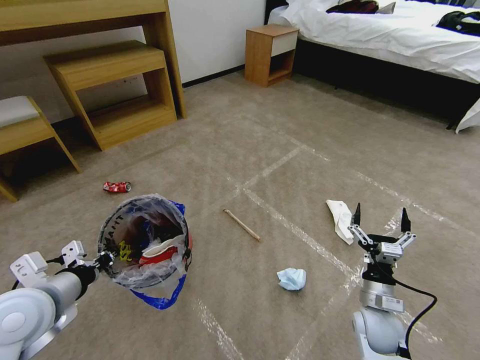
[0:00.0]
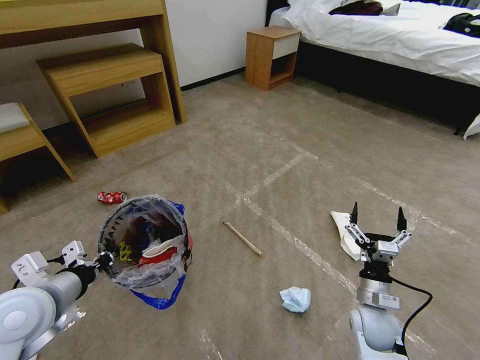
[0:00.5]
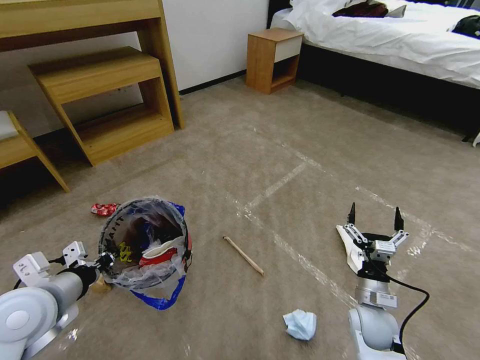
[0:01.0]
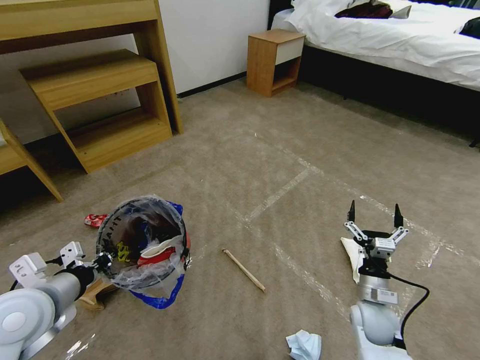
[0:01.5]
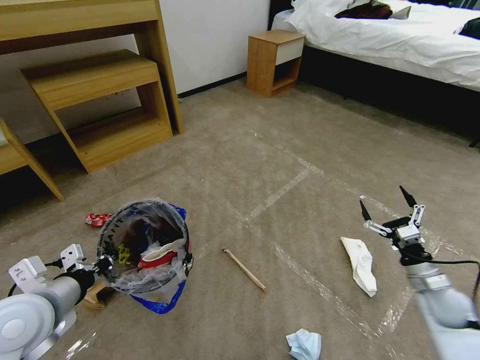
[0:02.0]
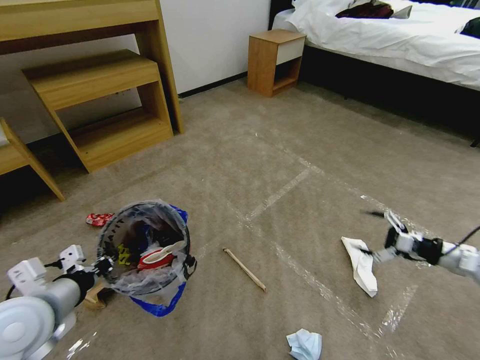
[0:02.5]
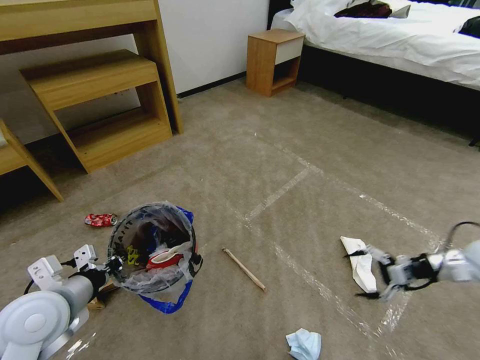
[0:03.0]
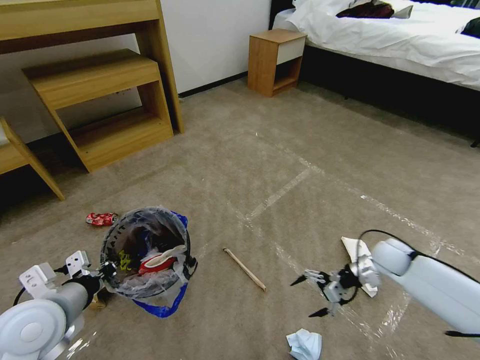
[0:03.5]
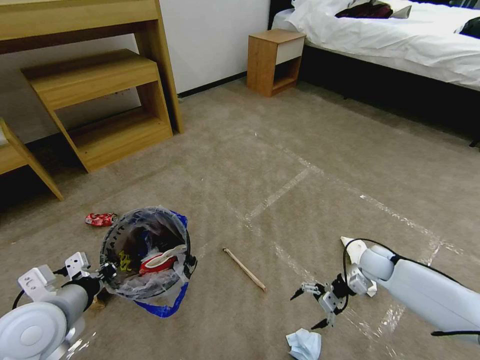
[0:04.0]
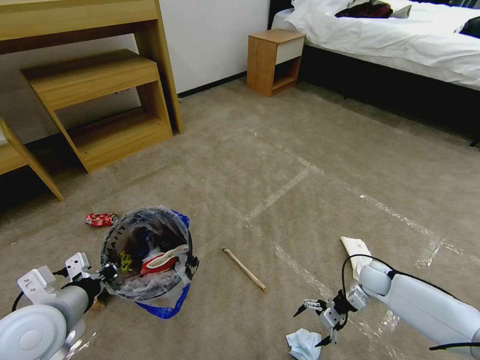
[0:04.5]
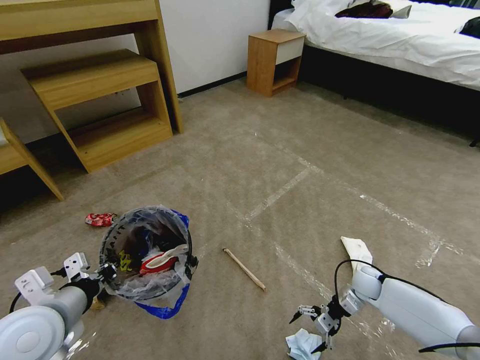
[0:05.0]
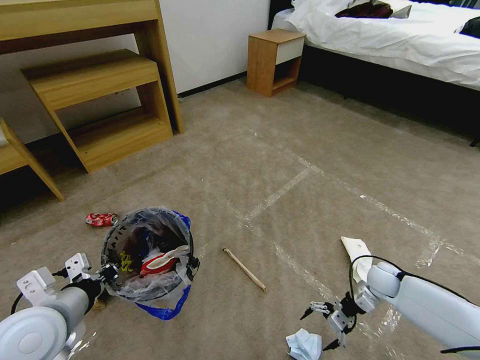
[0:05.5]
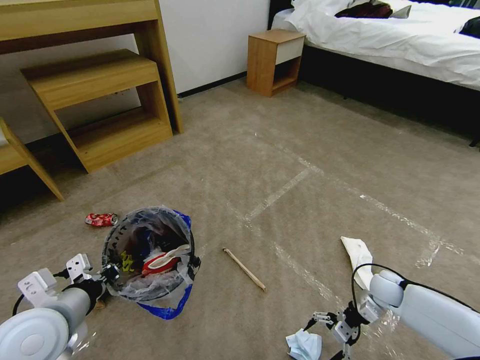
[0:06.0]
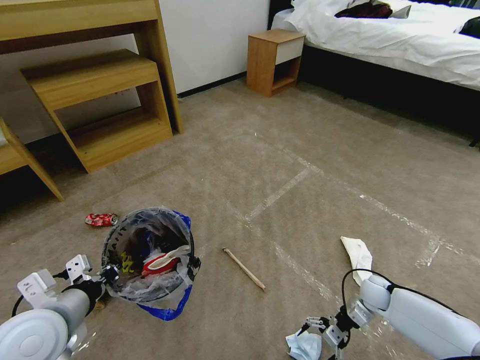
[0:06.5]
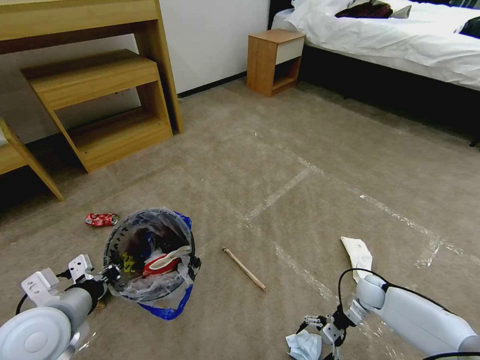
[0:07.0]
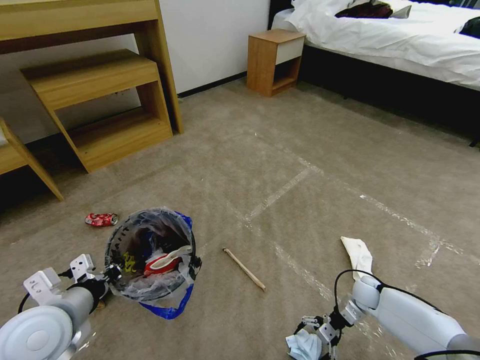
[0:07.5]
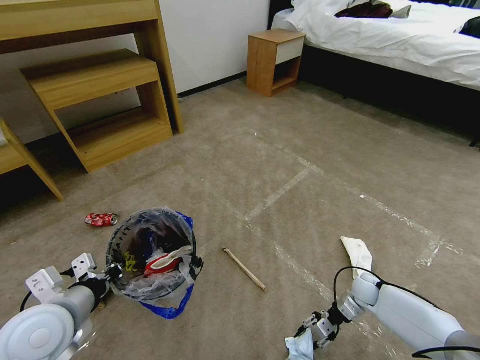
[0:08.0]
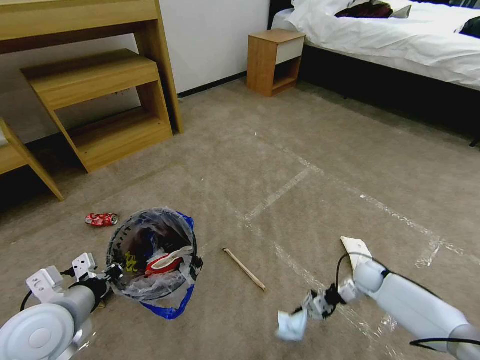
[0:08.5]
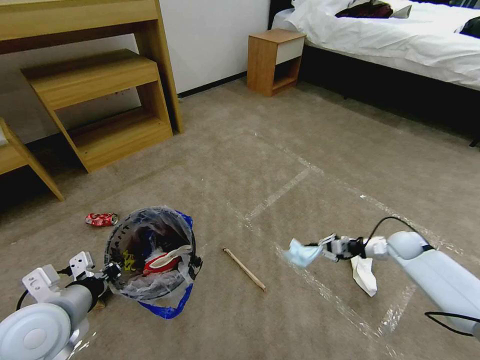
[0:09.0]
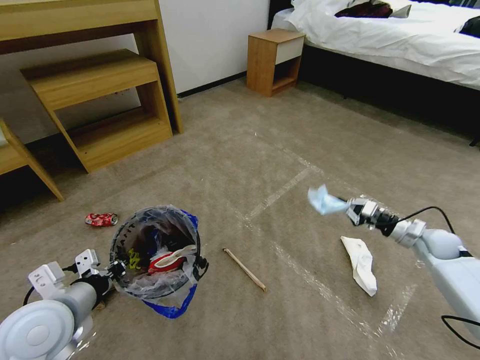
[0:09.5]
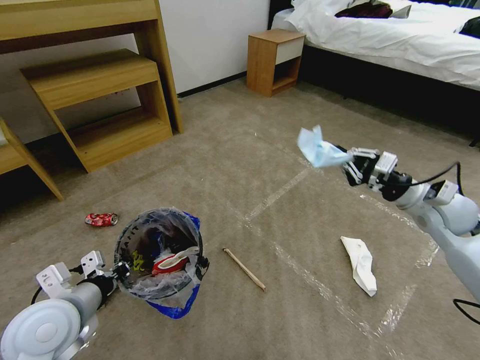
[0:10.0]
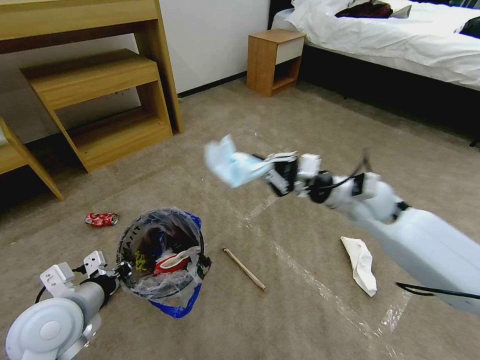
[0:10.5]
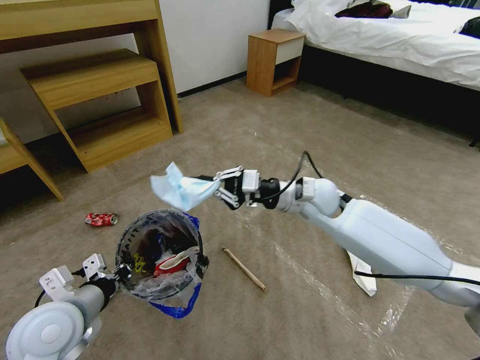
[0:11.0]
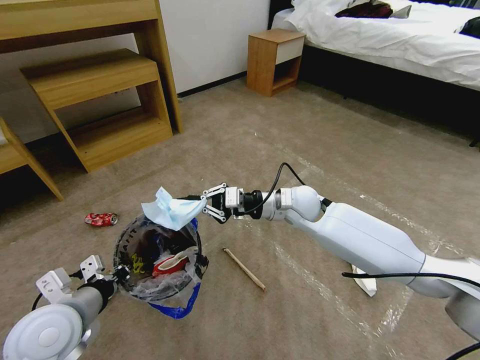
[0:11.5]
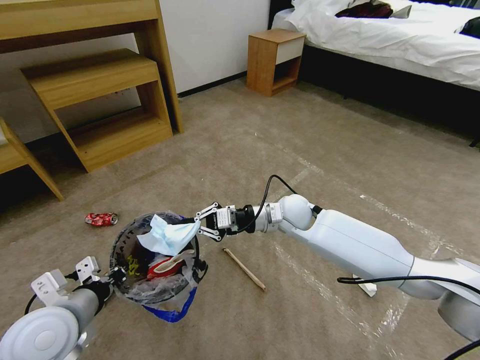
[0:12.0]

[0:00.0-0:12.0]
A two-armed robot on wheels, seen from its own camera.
Task of the whole recording: Pick up the trash bin and place the garbage on the floor into it.
0:00.0 to 0:02.0: The right gripper goes some 20 cm to the right.
0:02.0 to 0:04.0: The right gripper moves forward and to the left, about 15 cm.
0:04.0 to 0:06.0: The right gripper heads backward, covering some 5 cm.
0:06.0 to 0:08.0: The right gripper travels downward by about 5 cm, and closes up.
0:08.0 to 0:10.0: The right gripper heads upward, covering about 35 cm, and closes its fingers.
0:10.0 to 0:12.0: The right gripper heads to the left, covering some 30 cm.

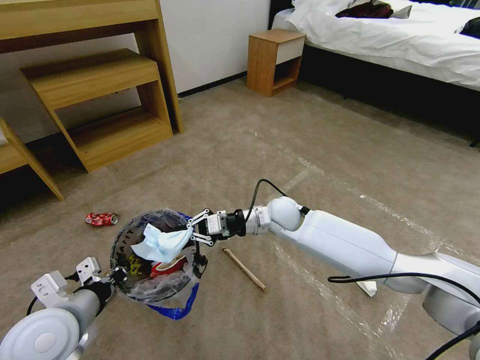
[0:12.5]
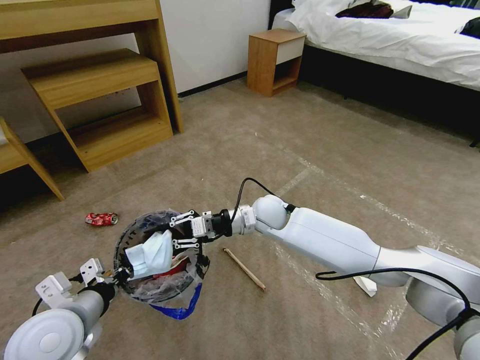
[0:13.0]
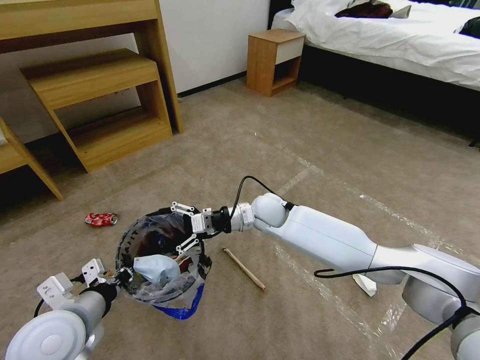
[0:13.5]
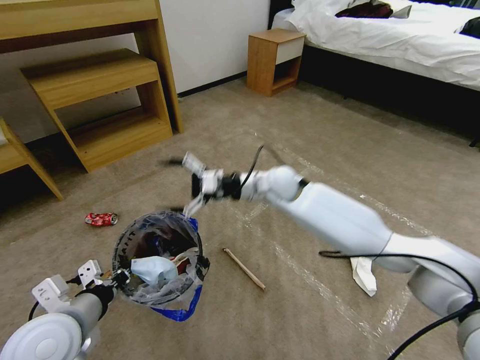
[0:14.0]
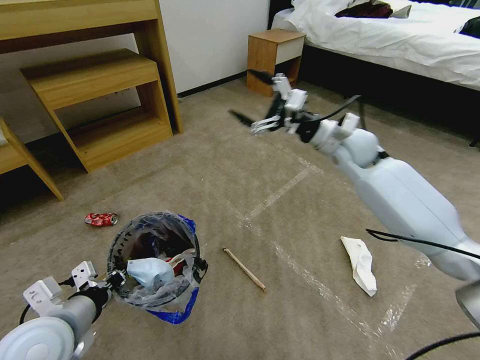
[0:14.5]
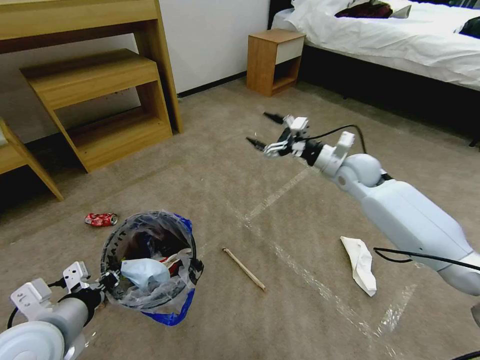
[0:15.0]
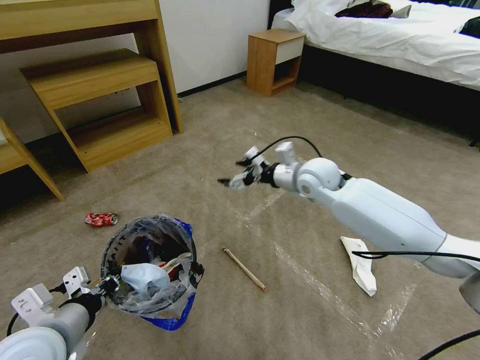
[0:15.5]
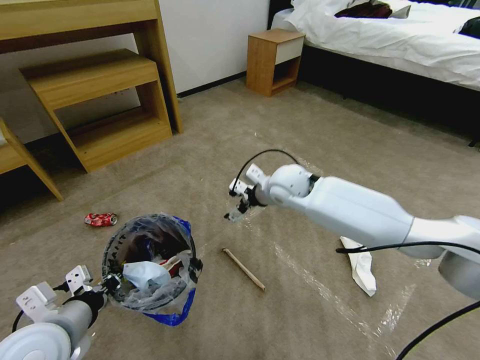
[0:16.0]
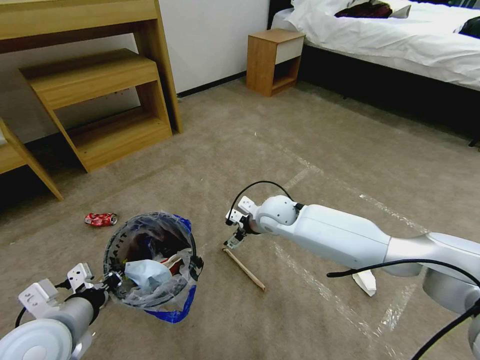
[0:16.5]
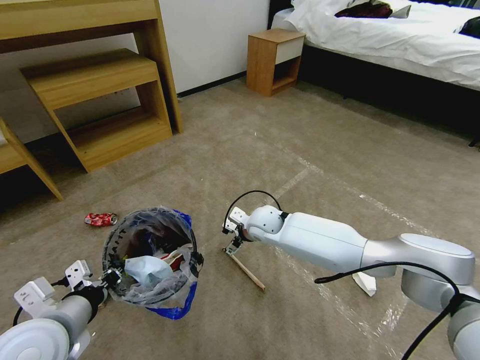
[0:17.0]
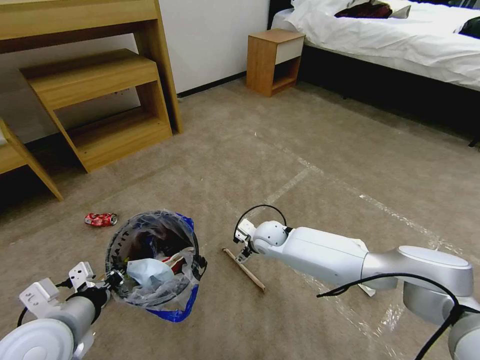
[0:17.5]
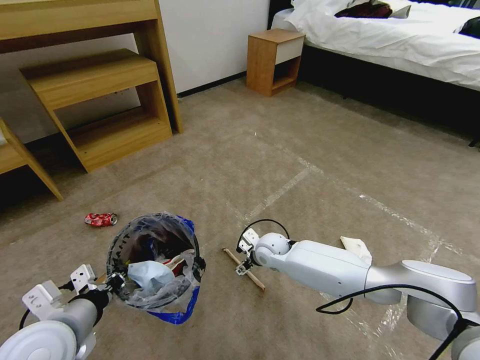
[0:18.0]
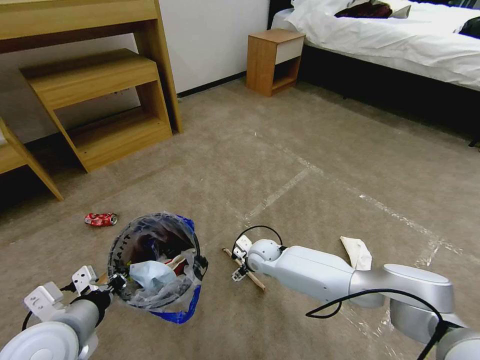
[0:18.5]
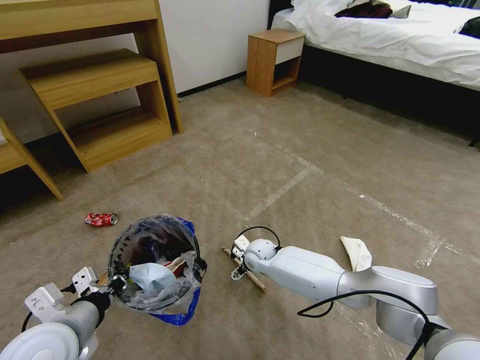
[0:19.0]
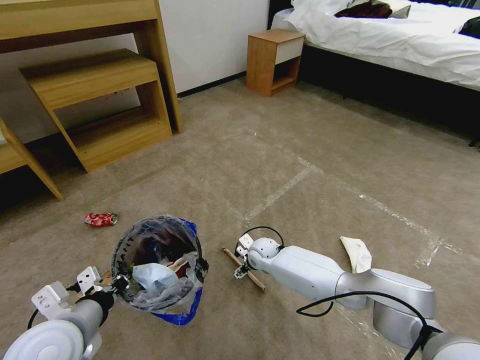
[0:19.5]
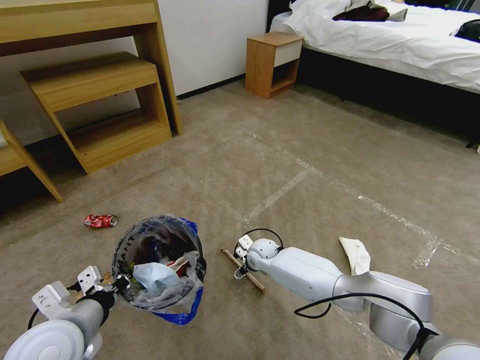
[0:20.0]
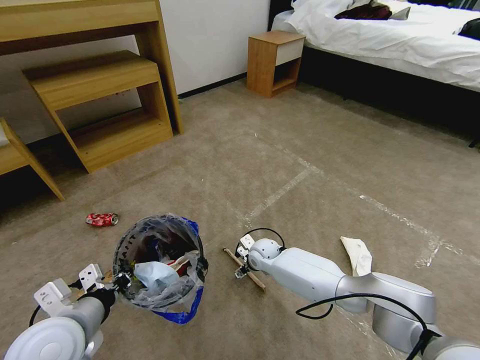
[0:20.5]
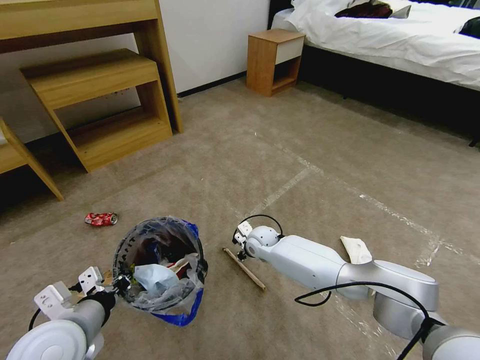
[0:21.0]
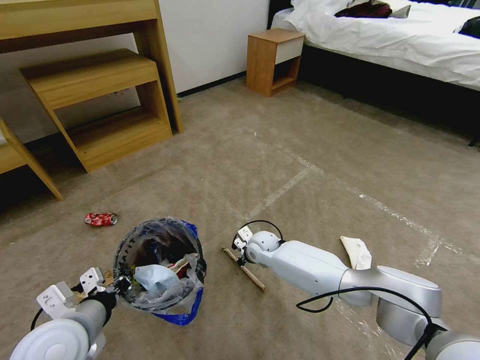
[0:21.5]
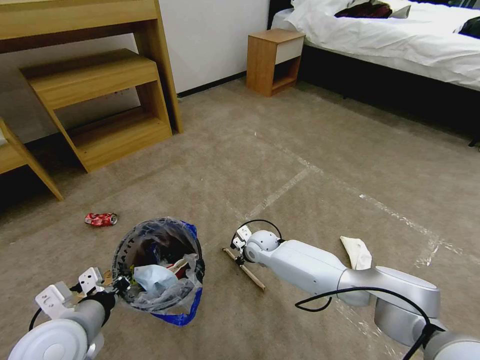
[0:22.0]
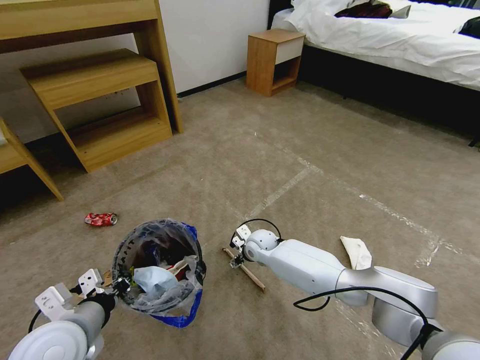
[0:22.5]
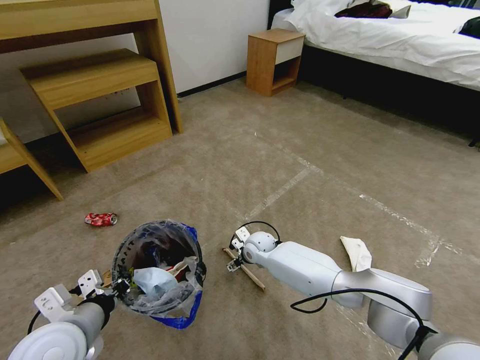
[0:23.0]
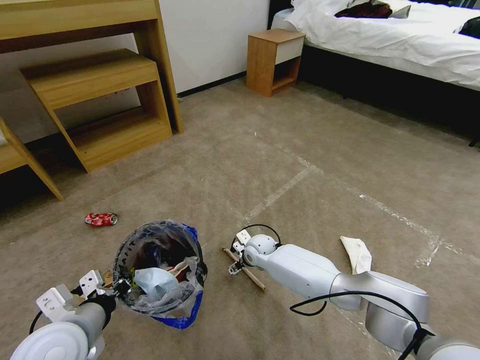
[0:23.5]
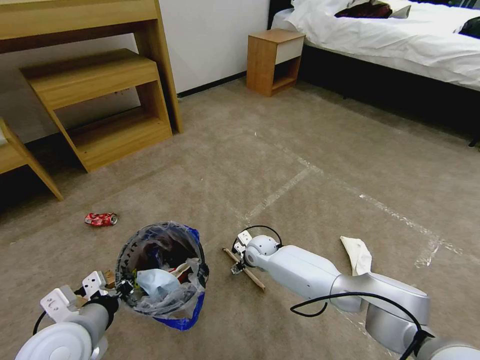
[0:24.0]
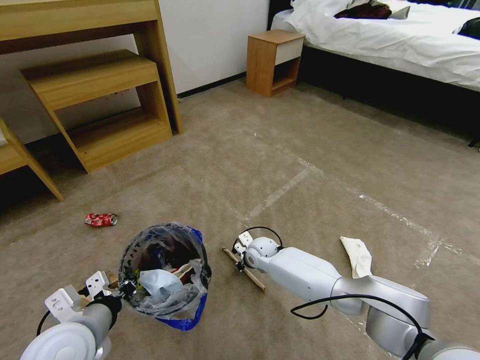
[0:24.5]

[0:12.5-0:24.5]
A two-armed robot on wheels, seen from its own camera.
Task of the whole recording: Pick up the trash bin and place the garbage on the floor into it.
0:12.5 to 0:14.5: The right gripper goes some 20 cm upward and to the right, and opens.
0:14.5 to 0:16.5: The right gripper travels downward and to the left by roughly 25 cm.
0:16.5 to 0:18.5: The right gripper is displaced downward by approximately 15 cm.
0:18.5 to 0:20.5: The grippers move only a little.
0:20.5 to 0:22.5: The right gripper closes, then opens again.
0:22.5 to 0:24.5: The right gripper closes up.

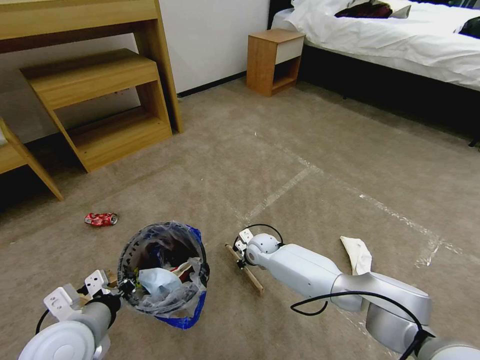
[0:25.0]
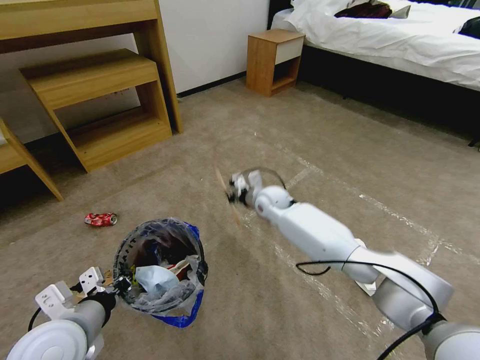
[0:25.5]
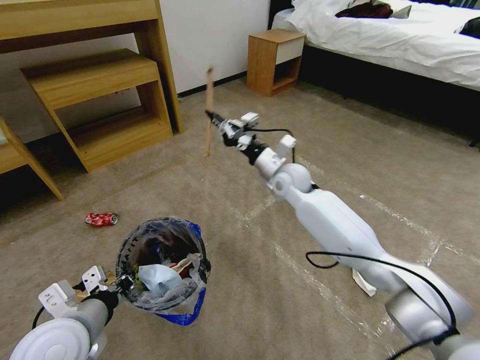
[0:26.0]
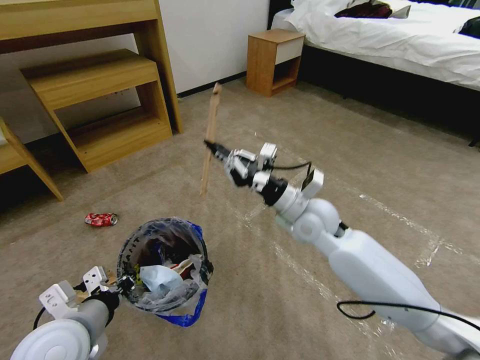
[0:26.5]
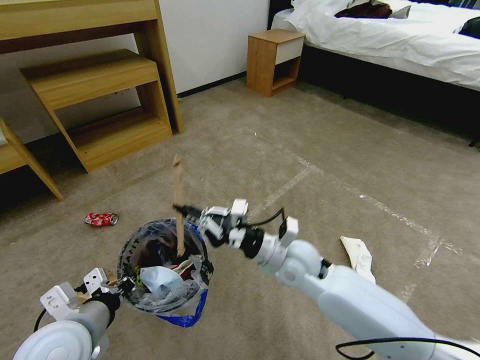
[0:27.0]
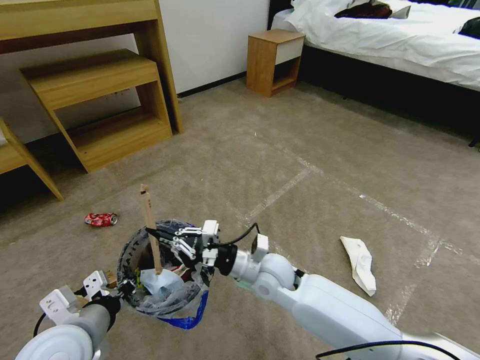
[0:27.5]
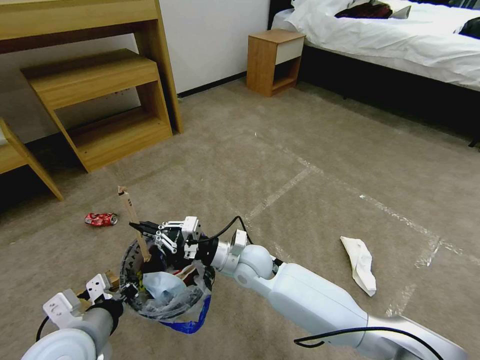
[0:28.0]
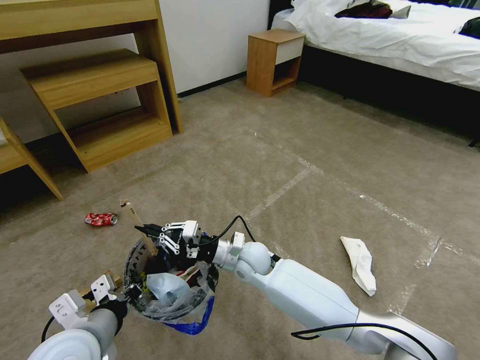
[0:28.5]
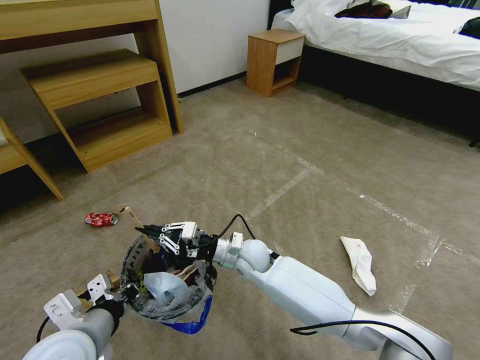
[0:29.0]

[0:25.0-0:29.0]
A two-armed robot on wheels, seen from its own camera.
Task of the whole recording: Pick up the trash bin and place the garbage on the floor into it.
0:25.0 to 0:27.0: The right gripper travels upward and backward by some 20 cm.
0:27.0 to 0:29.0: The right gripper is displaced to the left and downward by about 15 cm.
